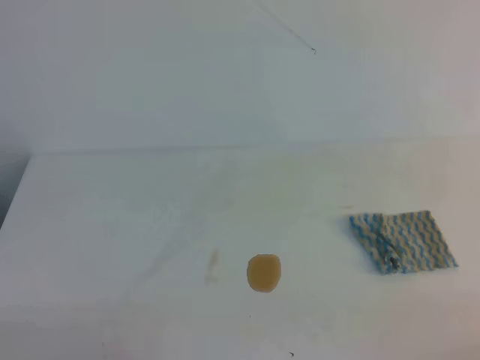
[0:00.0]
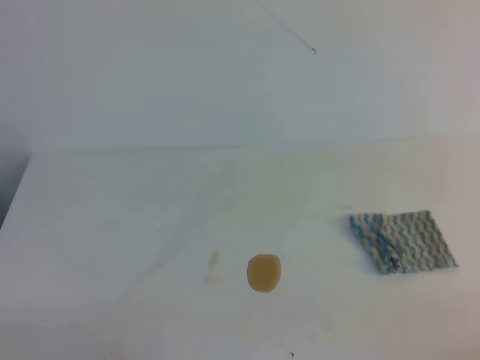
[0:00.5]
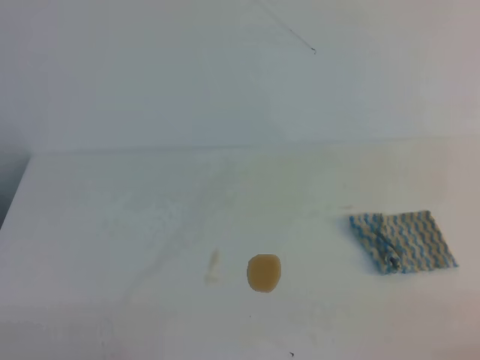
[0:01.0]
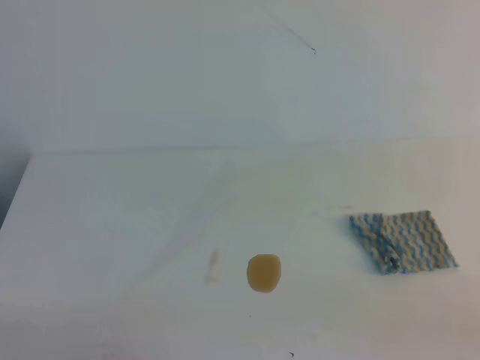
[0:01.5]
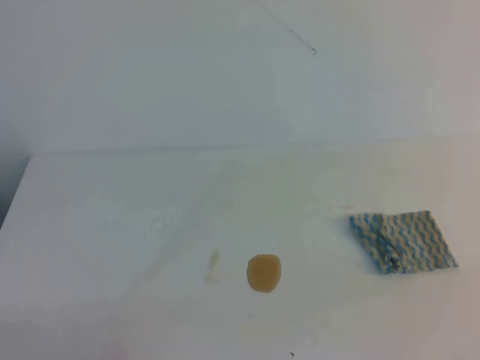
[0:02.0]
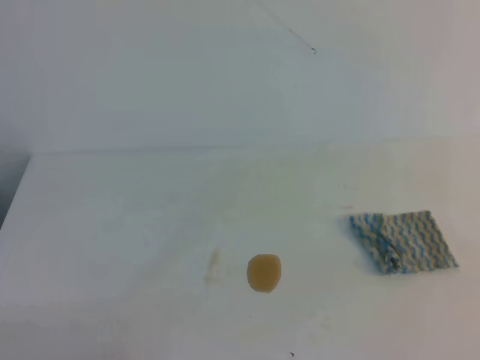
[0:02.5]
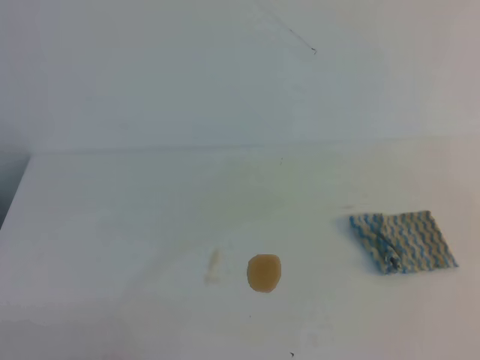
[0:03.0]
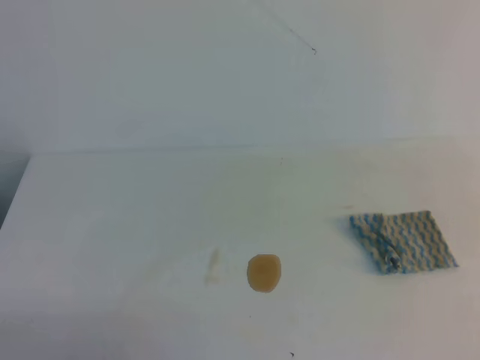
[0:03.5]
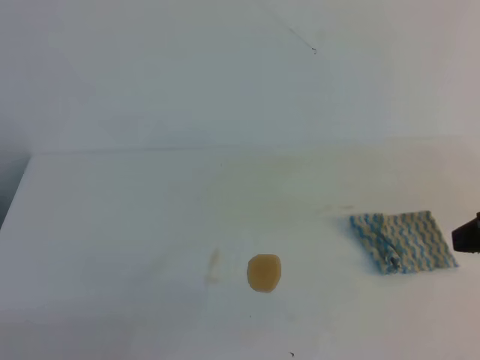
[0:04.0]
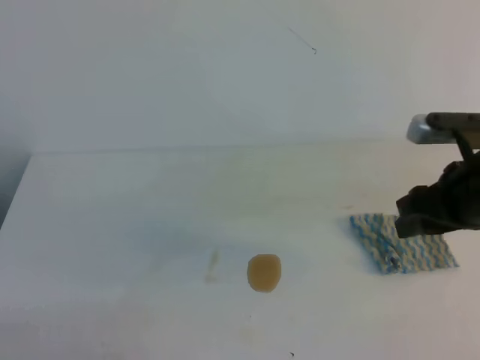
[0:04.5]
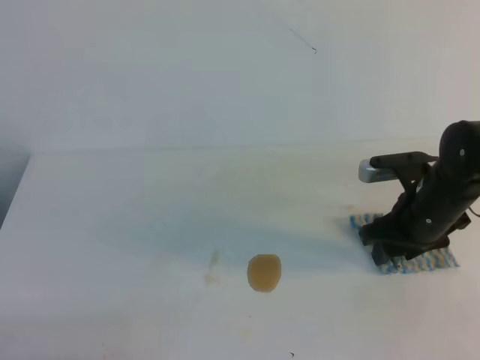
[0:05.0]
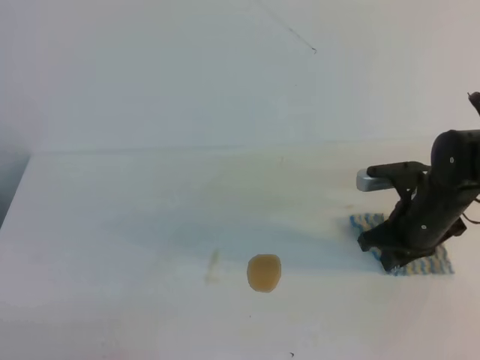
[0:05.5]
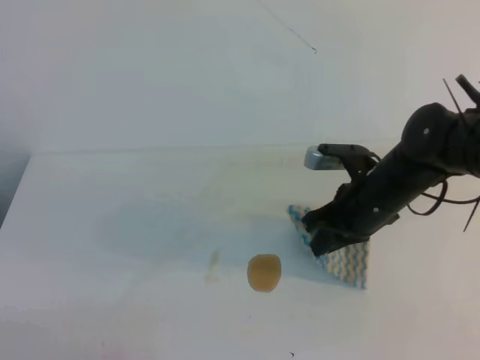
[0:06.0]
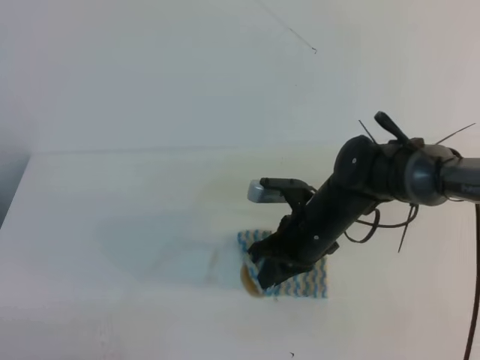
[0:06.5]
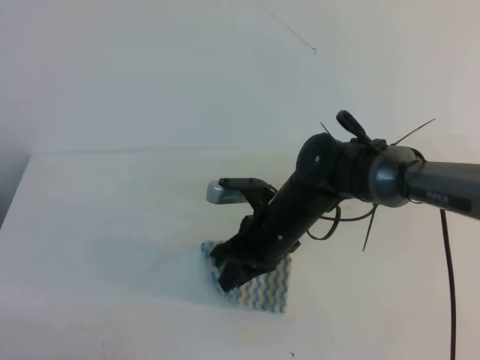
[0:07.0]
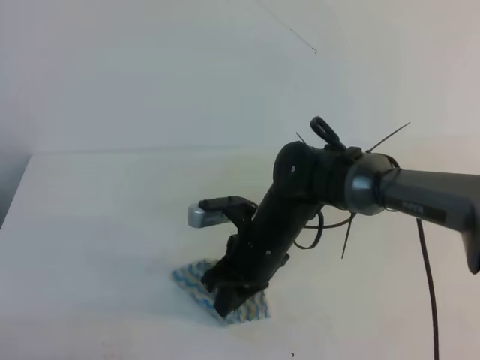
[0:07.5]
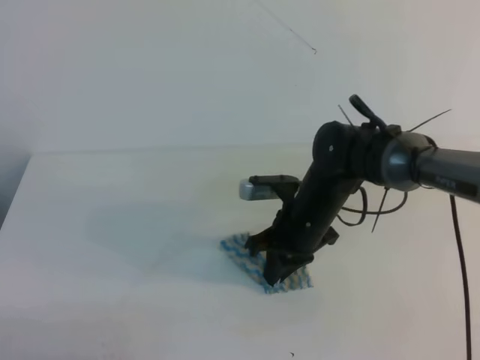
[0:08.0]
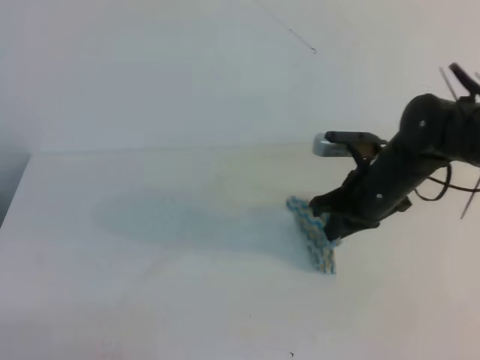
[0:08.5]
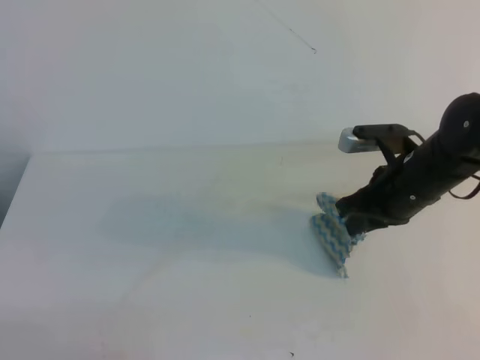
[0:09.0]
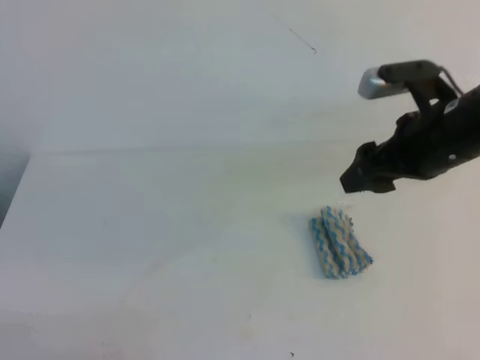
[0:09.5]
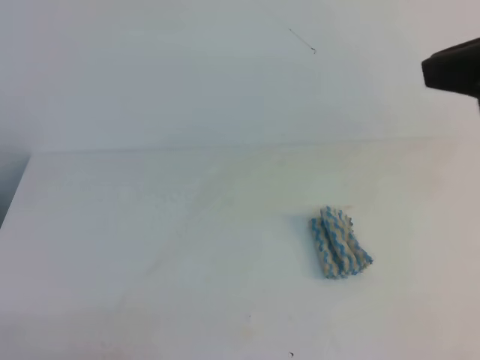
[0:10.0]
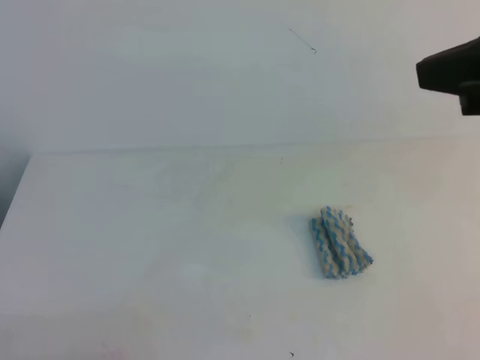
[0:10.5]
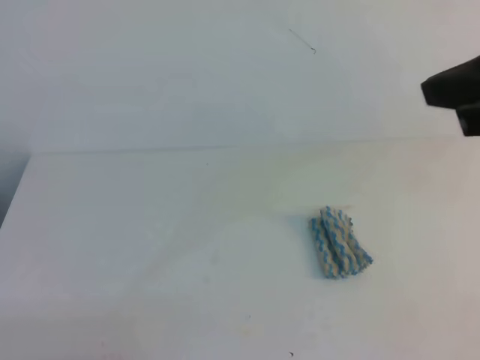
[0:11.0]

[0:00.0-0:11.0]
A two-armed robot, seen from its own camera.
0:03.5 to 0:05.5: The right gripper is displaced forward, downward and to the left by roughly 30 cm, and opens and closes again.
0:05.5 to 0:07.5: The right gripper travels to the left by approximately 20 cm.
0:07.5 to 0:09.0: The right gripper heads to the right, covering approximately 15 cm.
0:09.0 to 0:11.0: The right gripper travels upward and backward by roughly 25 cm, and opens, then closes again.

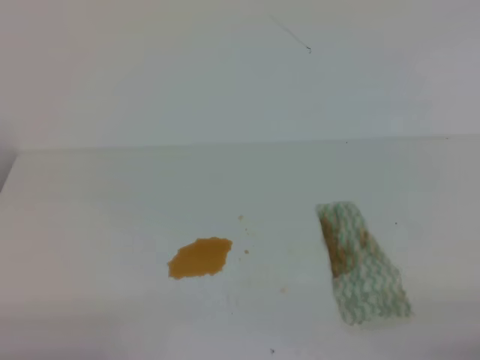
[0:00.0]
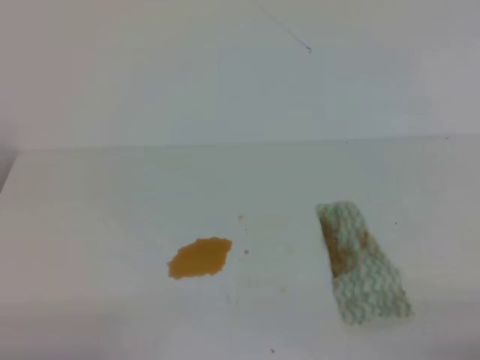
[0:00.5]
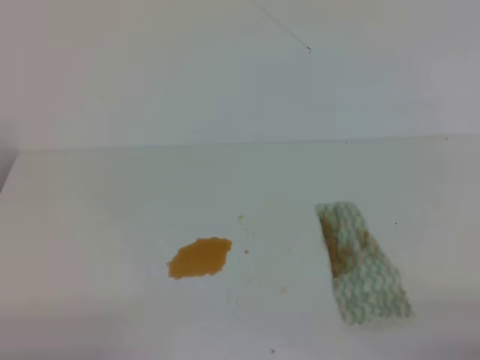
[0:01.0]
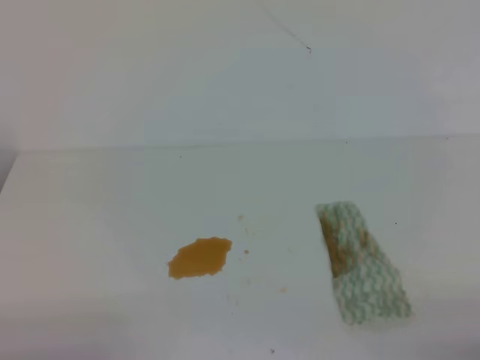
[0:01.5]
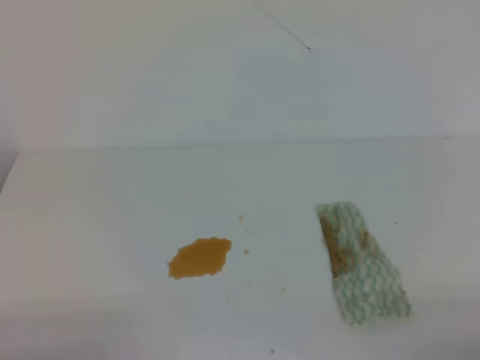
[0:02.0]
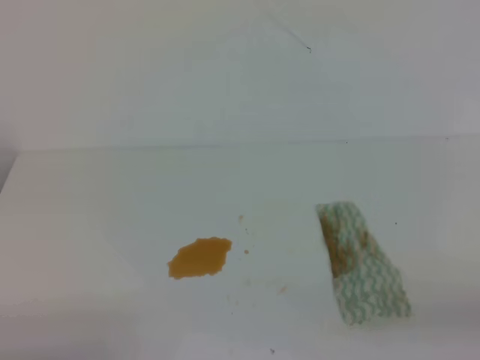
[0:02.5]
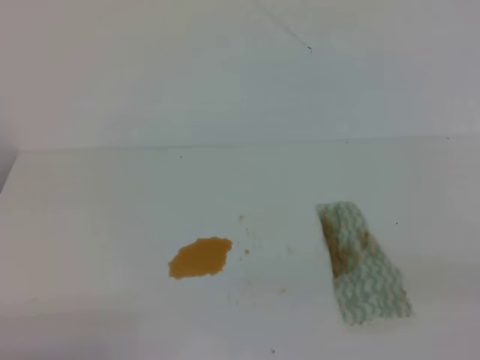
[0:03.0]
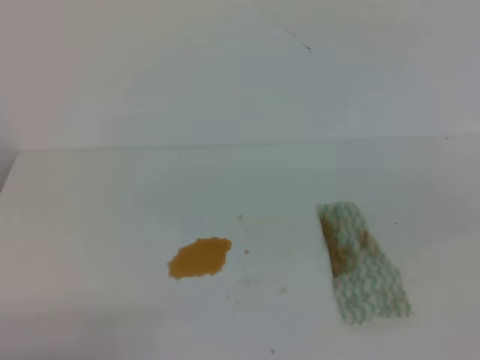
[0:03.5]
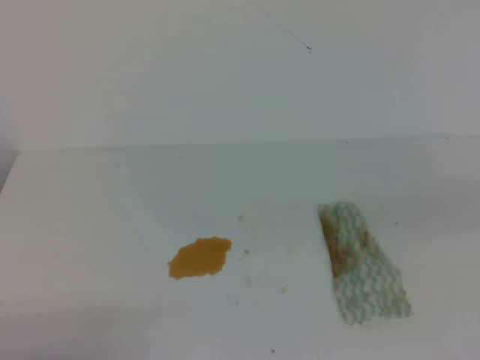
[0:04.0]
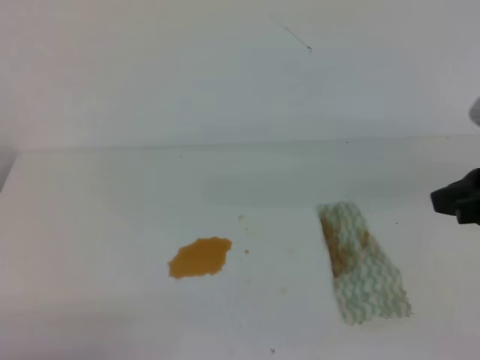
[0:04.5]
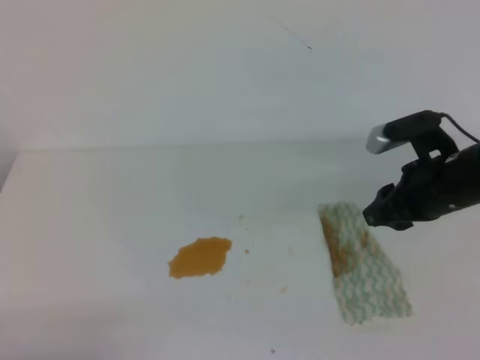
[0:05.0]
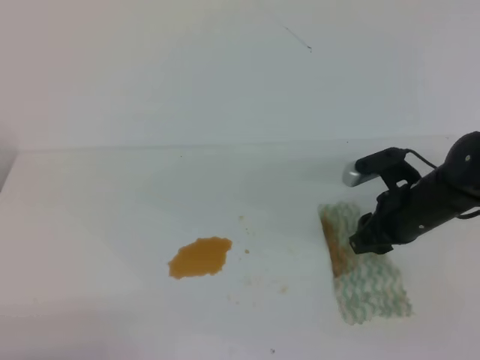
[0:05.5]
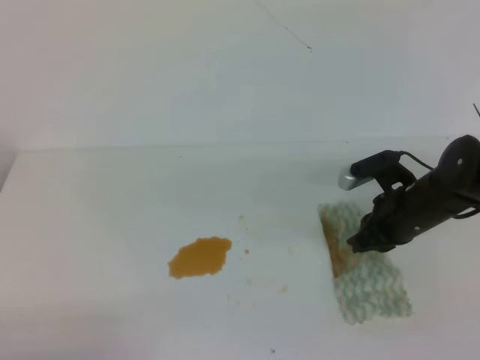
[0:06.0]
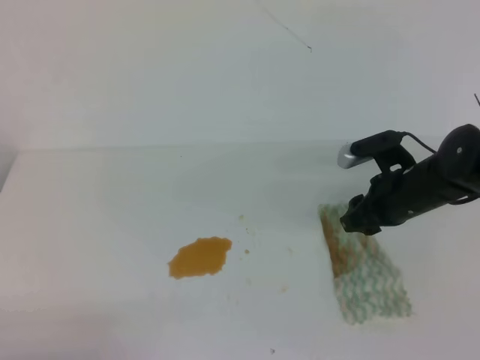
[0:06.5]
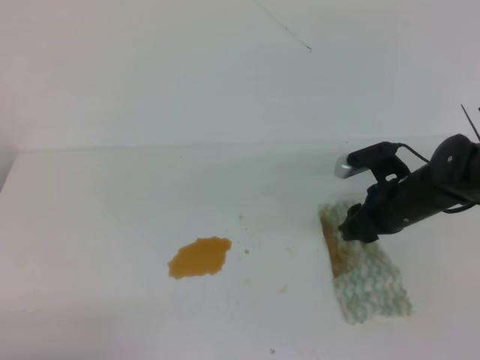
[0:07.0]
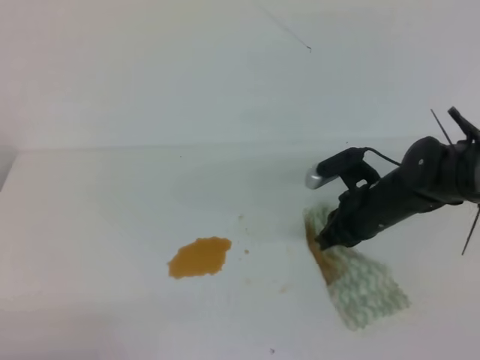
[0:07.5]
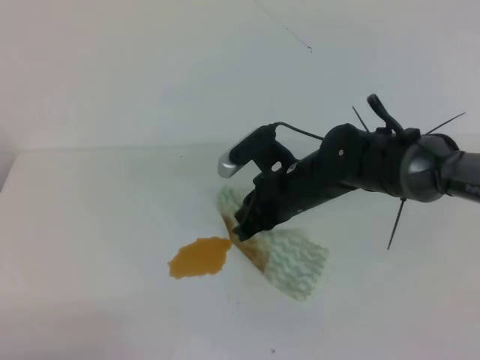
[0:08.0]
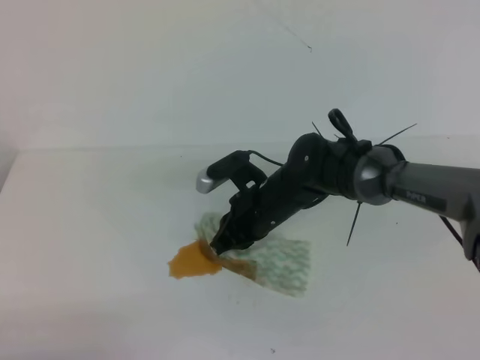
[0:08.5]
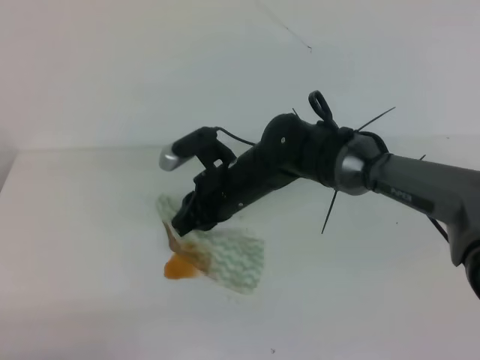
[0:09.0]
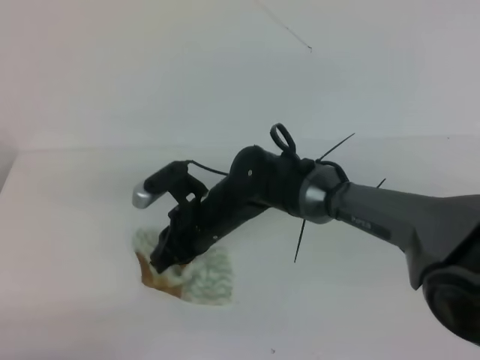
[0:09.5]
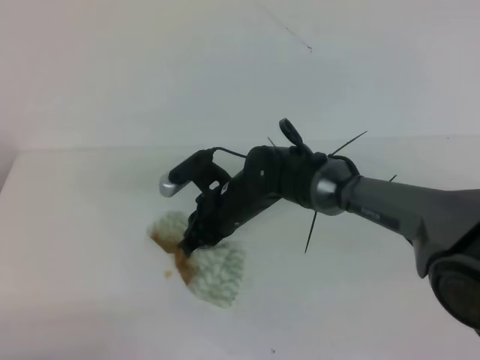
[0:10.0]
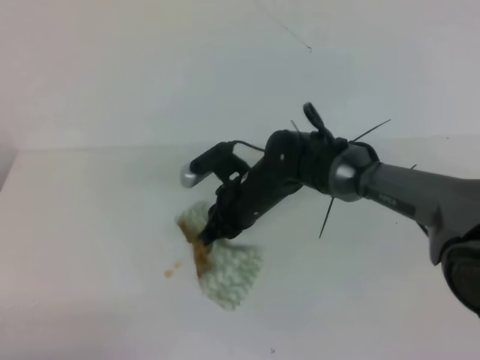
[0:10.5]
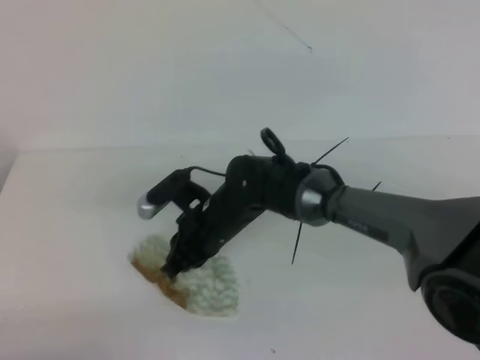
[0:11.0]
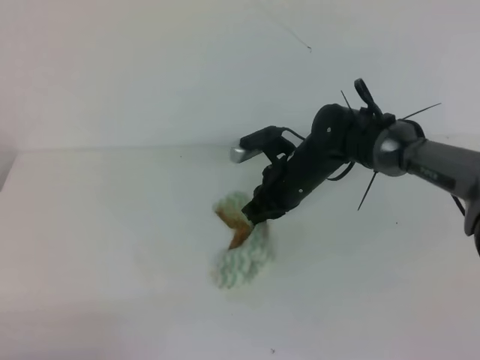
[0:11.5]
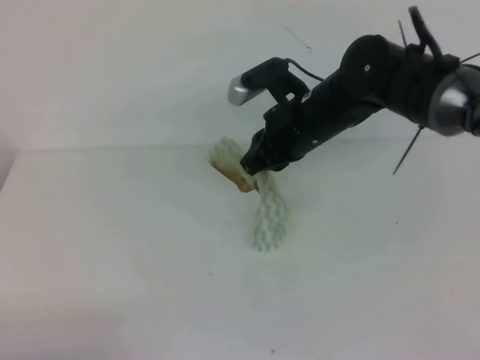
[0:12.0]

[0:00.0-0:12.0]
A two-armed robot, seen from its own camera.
0:00.0 to 0:02.0: Both grippers stay put.
0:04.0 to 0:06.0: The right gripper travels forward and downward by about 30 cm, and opens and closes again.
0:06.0 to 0:08.0: The right gripper heads to the left, covering approximately 15 cm, and opens, then closes once more.
0:08.0 to 0:10.0: The right gripper shifts roughly 10 cm to the left.
0:10.0 to 0:12.0: The right gripper heads upward and to the right, covering approximately 15 cm.

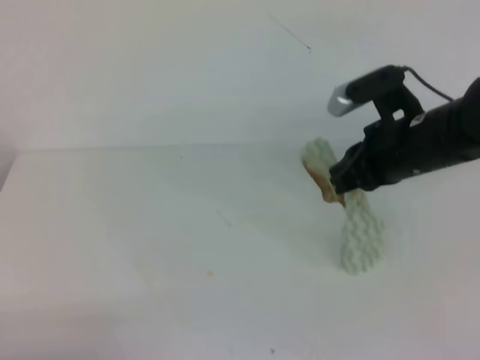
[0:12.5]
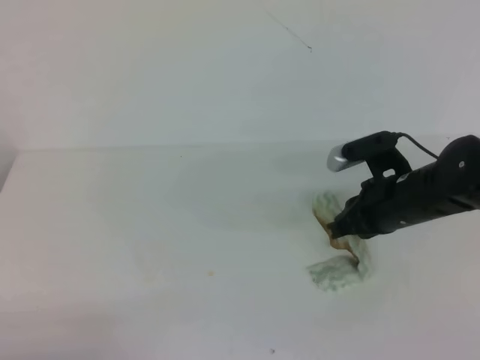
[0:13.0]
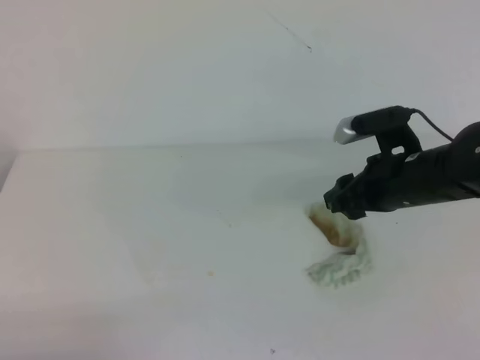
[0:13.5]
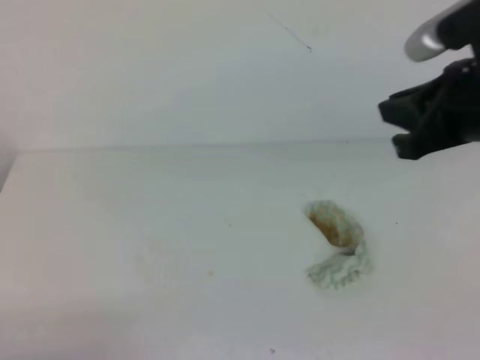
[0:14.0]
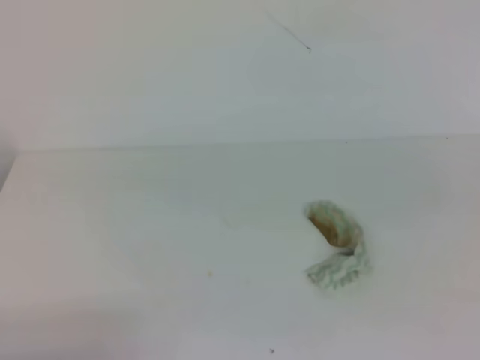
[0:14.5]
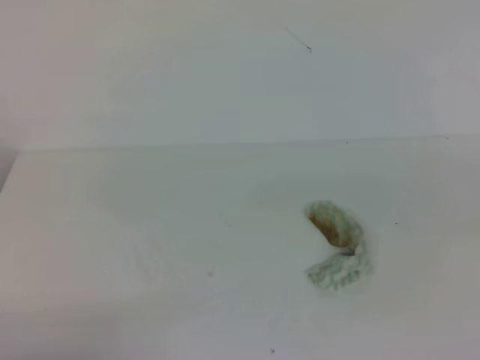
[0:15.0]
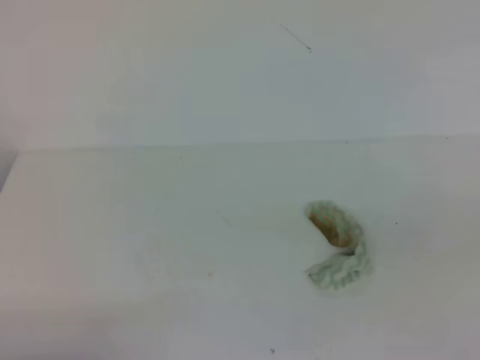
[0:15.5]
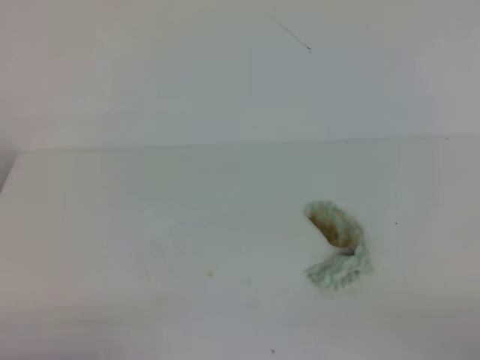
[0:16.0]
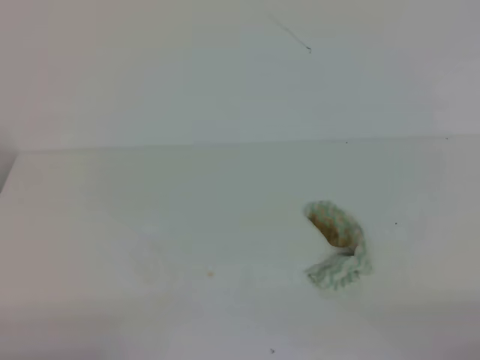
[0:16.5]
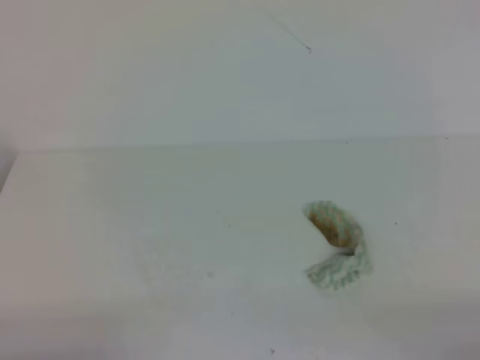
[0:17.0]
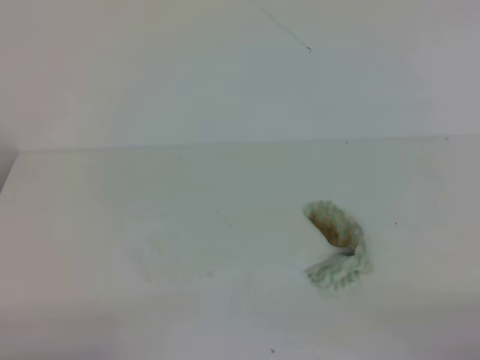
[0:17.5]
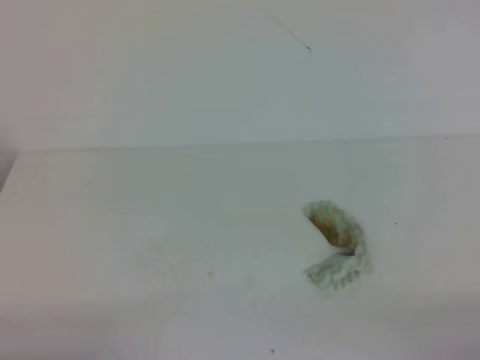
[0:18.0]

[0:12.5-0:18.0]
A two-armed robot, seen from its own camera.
0:12.5 to 0:14.5: The right gripper goes some 30 cm backward, upward and to the right, and opens and closes again.
0:14.5 to 0:16.0: The right gripper goes about 20 cm downward and backward.
